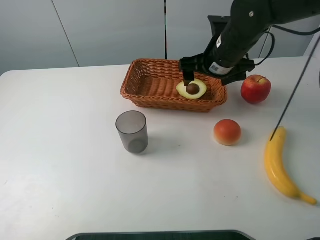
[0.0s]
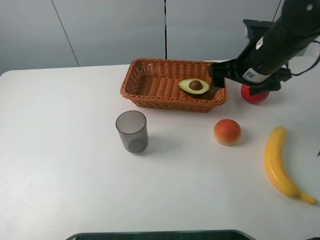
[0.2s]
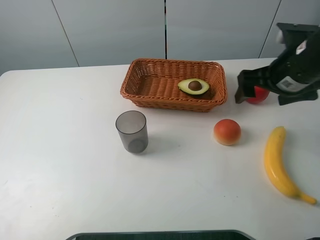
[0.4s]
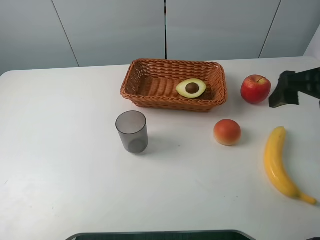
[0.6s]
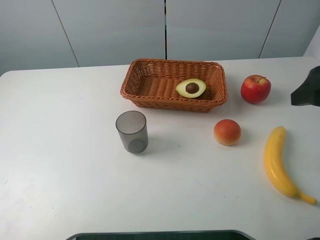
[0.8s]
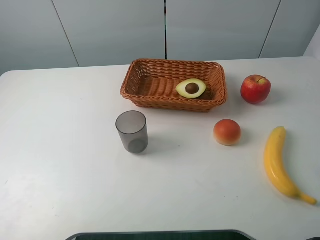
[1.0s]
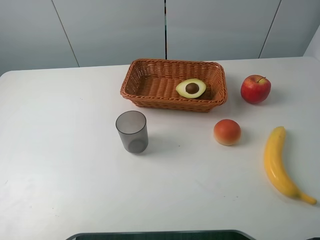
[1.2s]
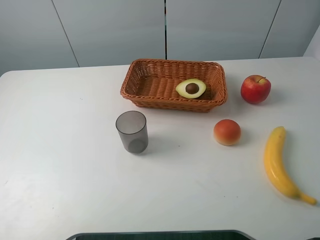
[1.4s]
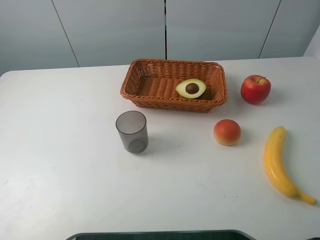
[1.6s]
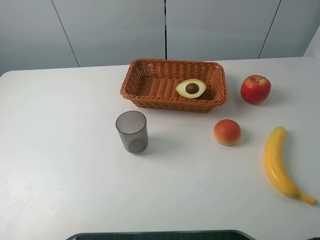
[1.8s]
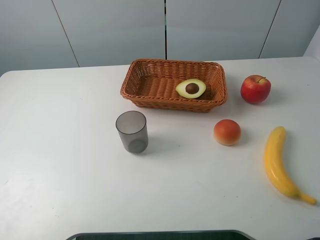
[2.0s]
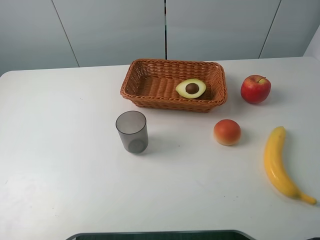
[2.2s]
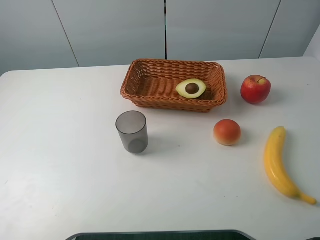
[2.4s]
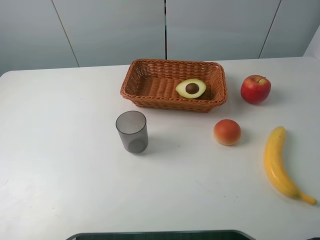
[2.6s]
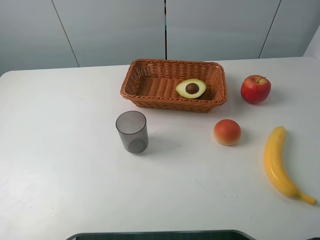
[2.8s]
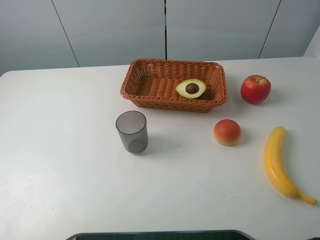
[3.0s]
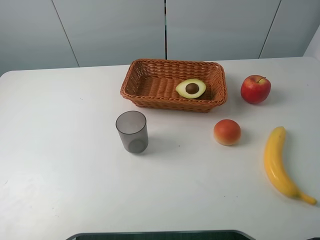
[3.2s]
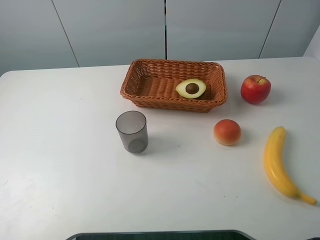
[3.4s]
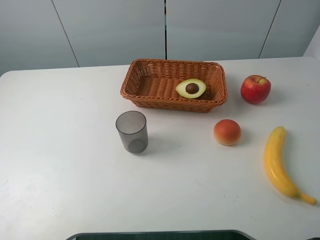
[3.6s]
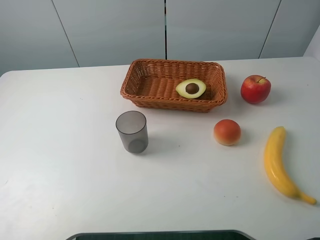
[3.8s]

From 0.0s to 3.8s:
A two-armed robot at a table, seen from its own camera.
Task of the whole recording: randomly pick up an item from the table and put it in the basket.
From 0.0s to 1.2s: The right gripper shifts approximately 35 cm backward, to the right and upward.
From 2.6s to 3.8s: Both grippers stay put.
